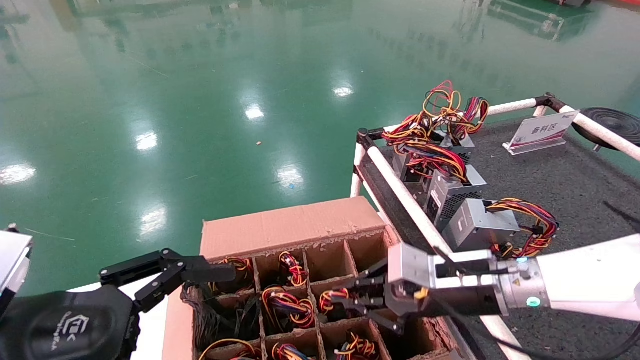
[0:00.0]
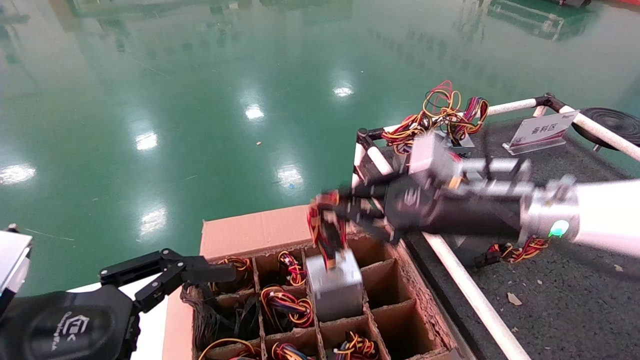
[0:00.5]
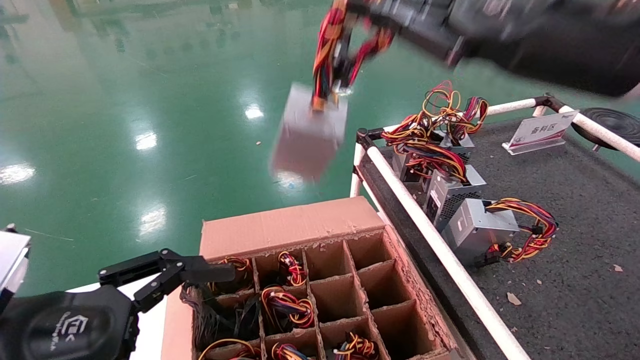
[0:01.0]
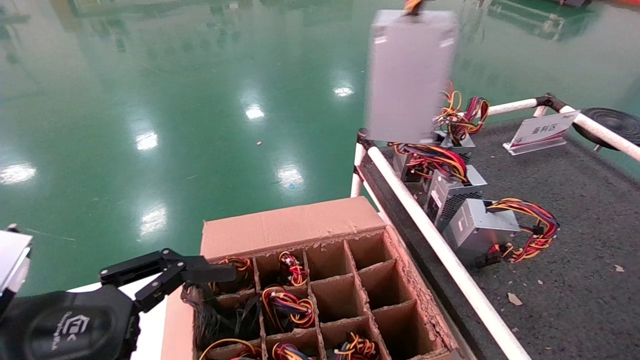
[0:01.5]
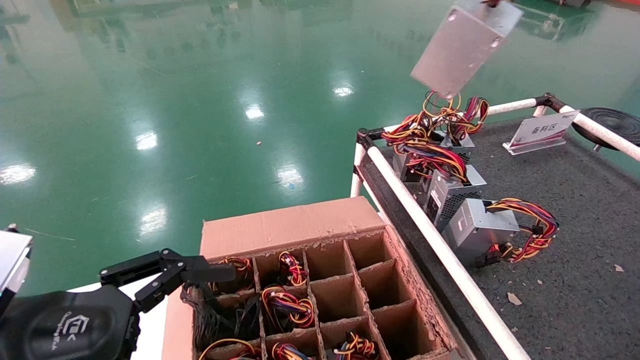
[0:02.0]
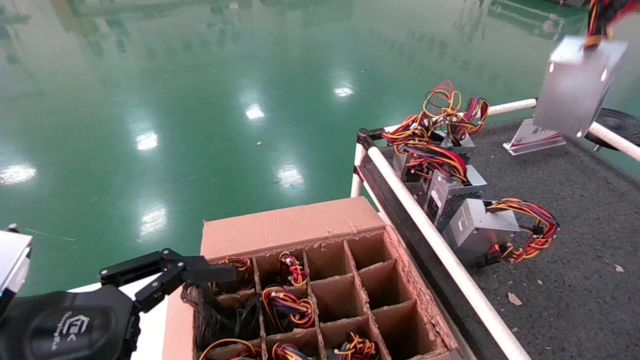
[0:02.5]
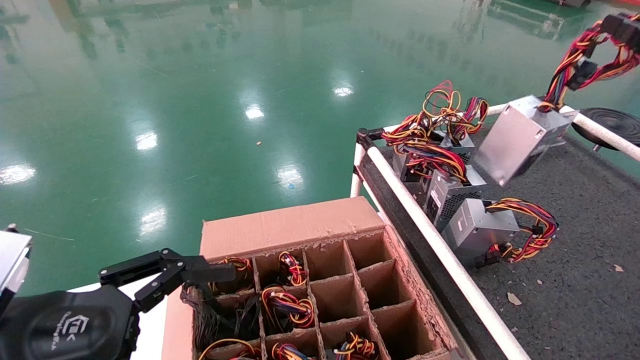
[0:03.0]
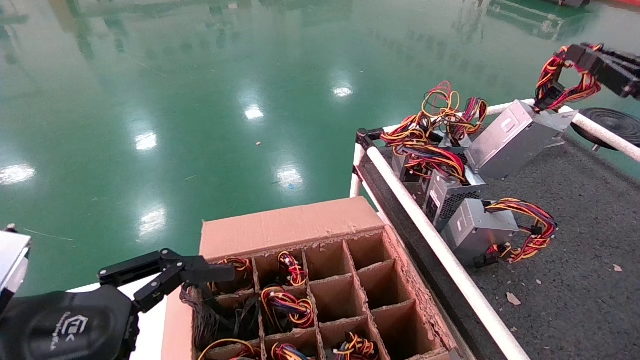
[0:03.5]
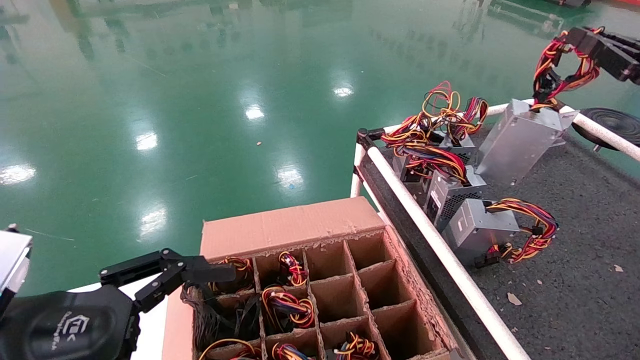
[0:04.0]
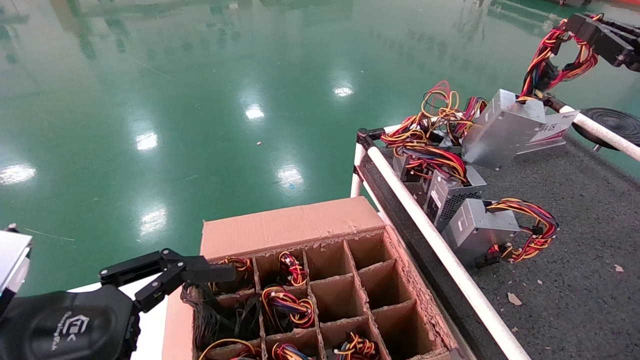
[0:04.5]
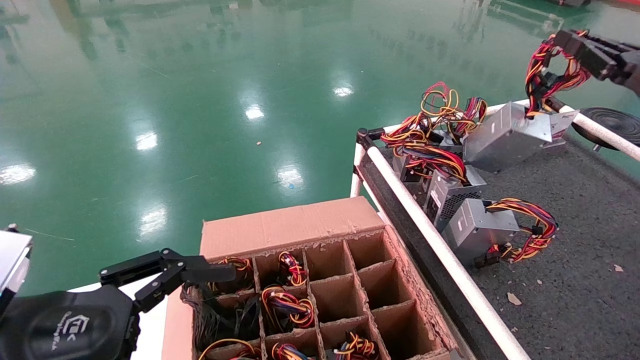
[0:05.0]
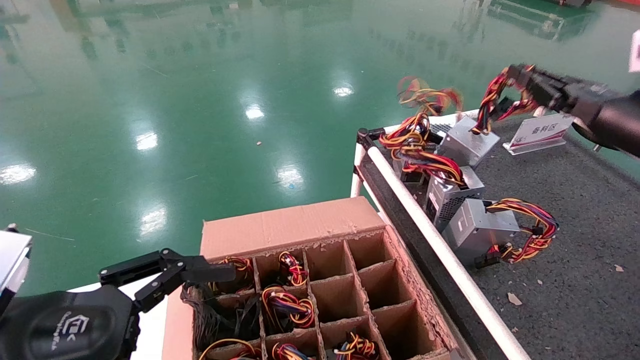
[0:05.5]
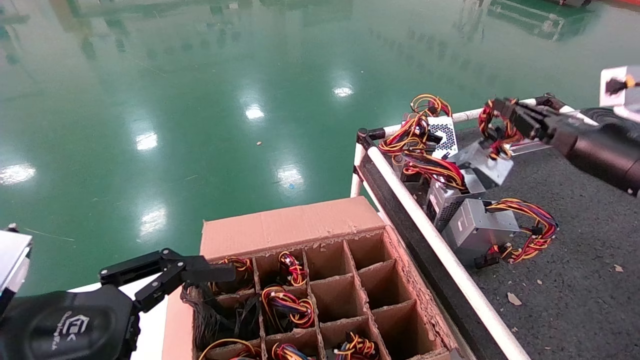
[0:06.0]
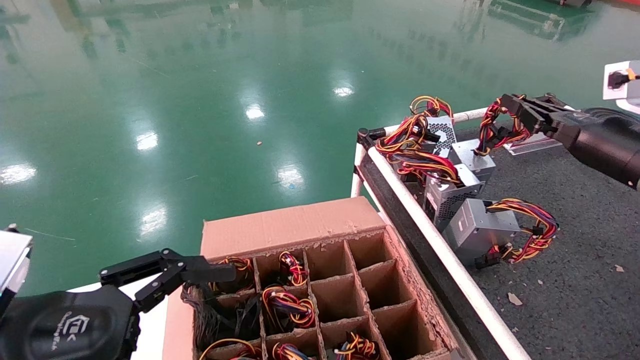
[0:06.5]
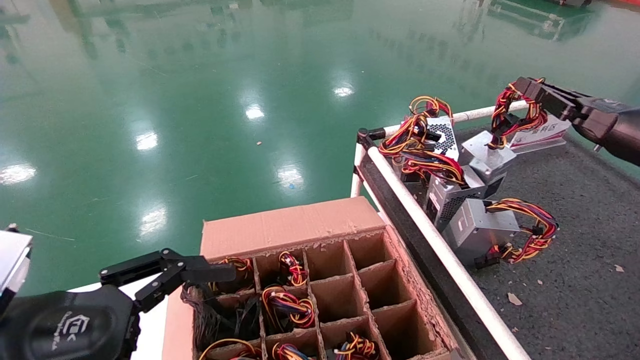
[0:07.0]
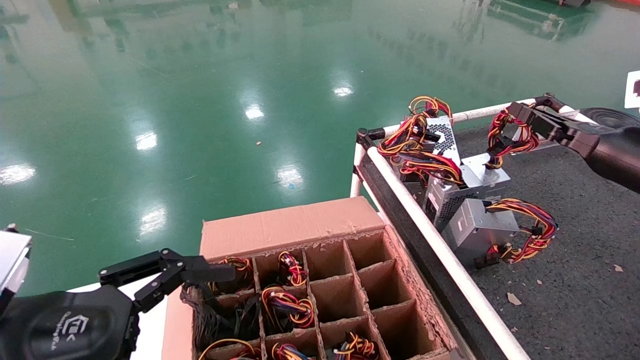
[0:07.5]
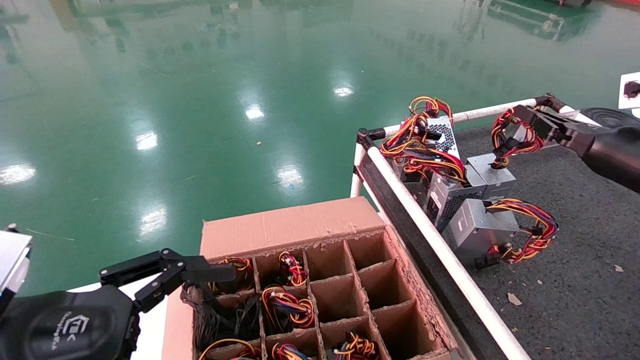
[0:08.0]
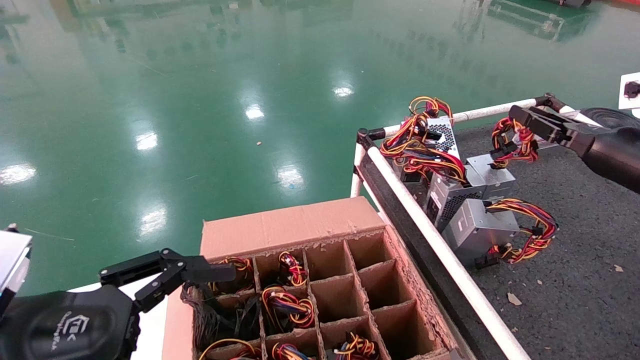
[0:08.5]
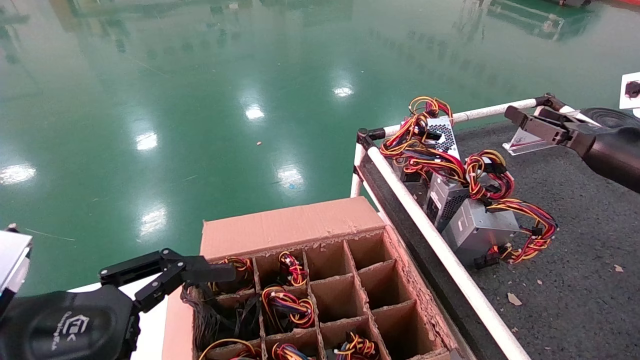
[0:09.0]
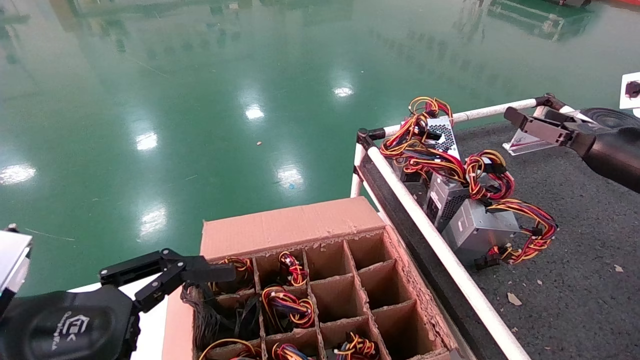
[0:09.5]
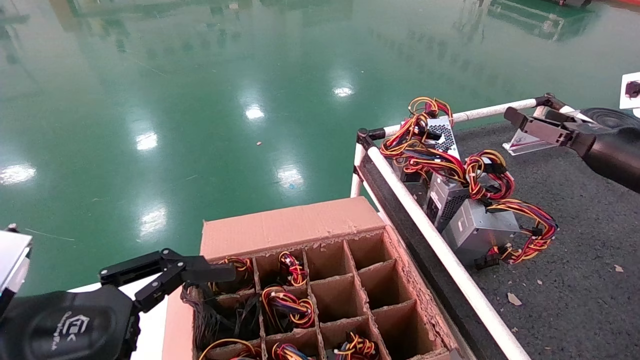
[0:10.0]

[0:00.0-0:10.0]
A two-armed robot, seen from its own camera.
Step, 0:00.0 to 0:08.5: Place the power supply on the operating table.
0:00.0 to 0:02.0: The right gripper is displaced upward, to the right and backward by some 40 cm.
0:02.0 to 0:04.0: The right gripper travels downward, forward and to the right by about 15 cm.
0:04.0 to 0:06.0: The right gripper goes approximately 10 cm forward and downward.
0:06.0 to 0:08.0: The grippers stay close to where they were, moving slightly.
0:08.0 to 0:10.0: The right gripper opens its fingers.
